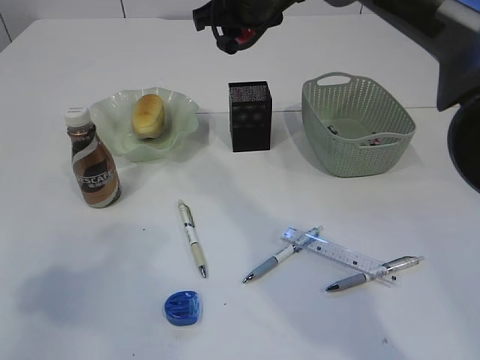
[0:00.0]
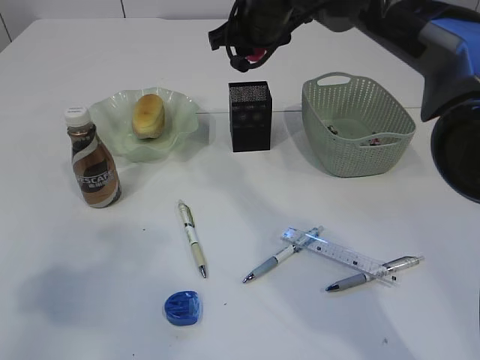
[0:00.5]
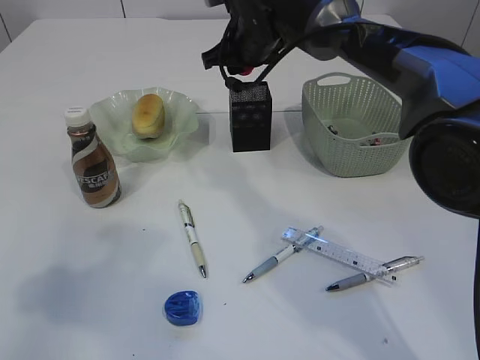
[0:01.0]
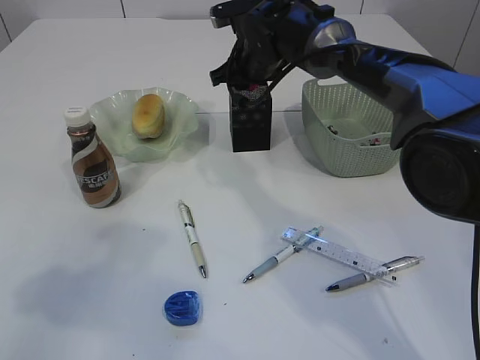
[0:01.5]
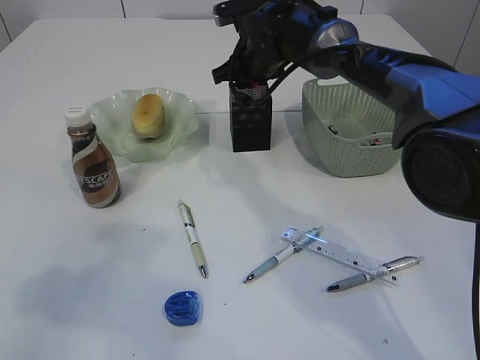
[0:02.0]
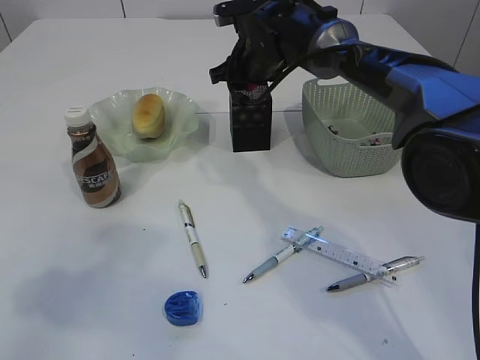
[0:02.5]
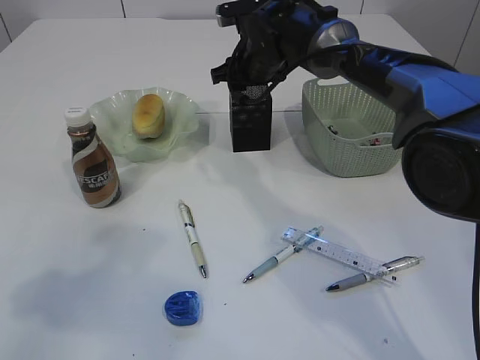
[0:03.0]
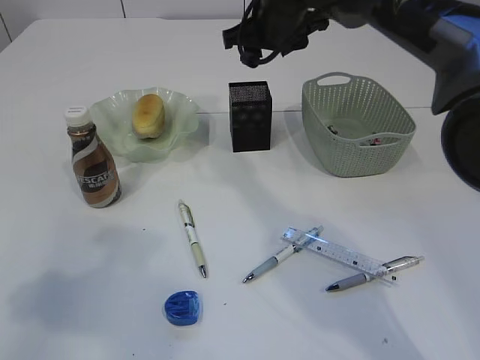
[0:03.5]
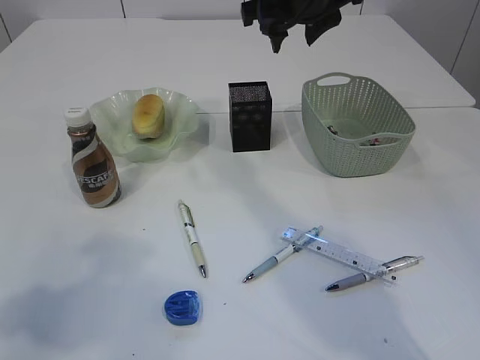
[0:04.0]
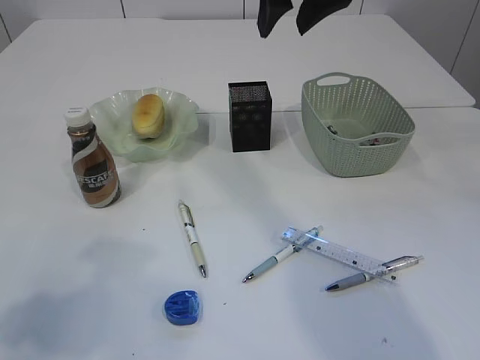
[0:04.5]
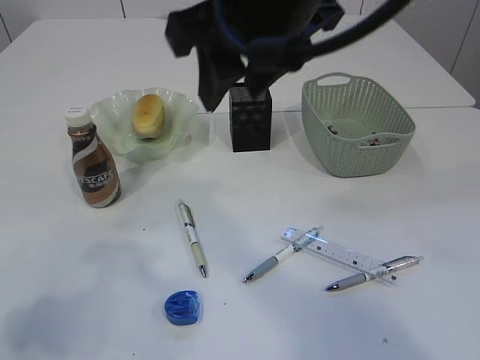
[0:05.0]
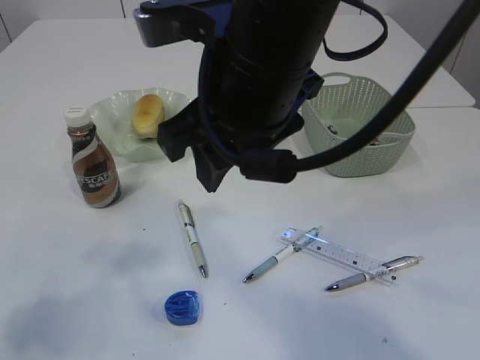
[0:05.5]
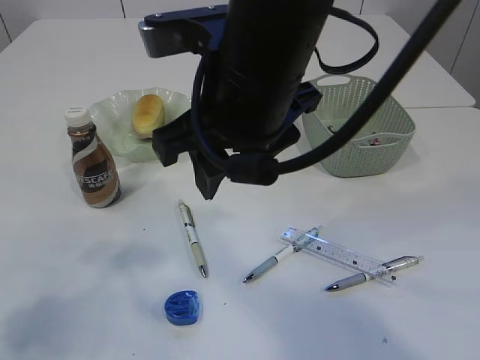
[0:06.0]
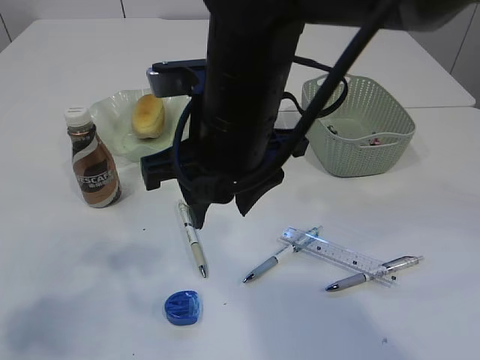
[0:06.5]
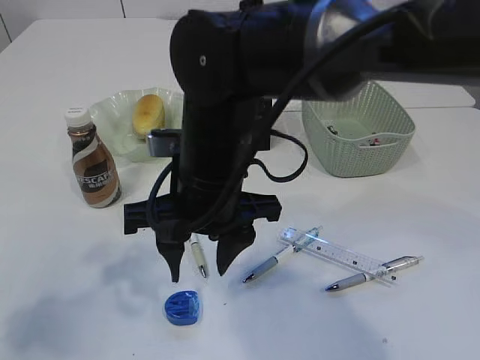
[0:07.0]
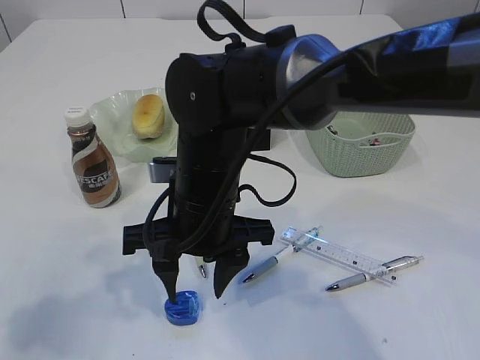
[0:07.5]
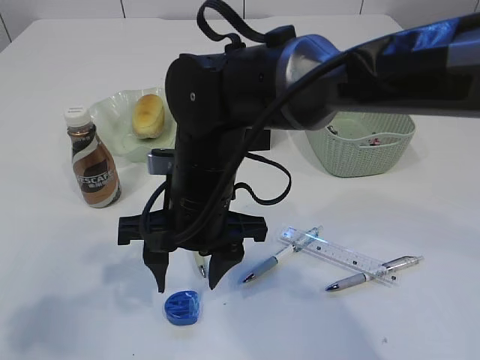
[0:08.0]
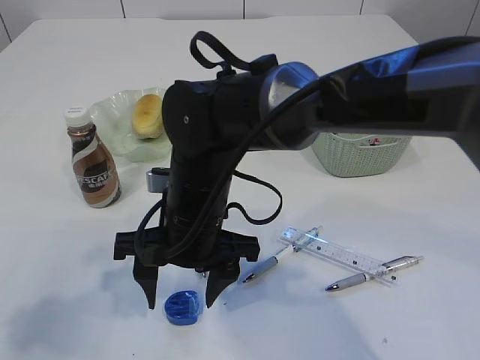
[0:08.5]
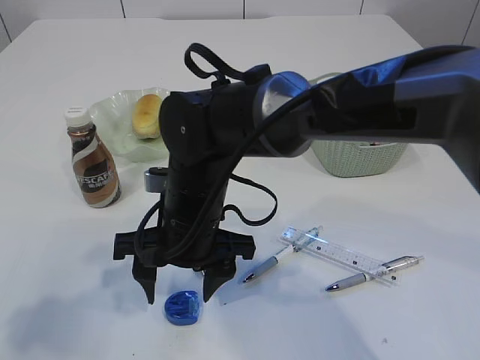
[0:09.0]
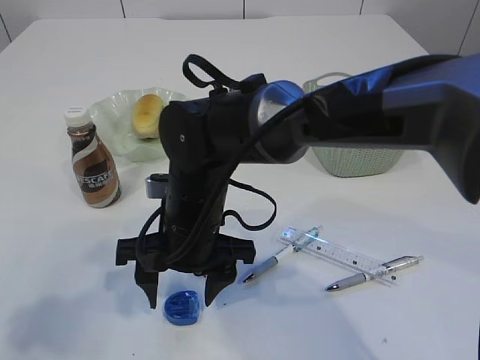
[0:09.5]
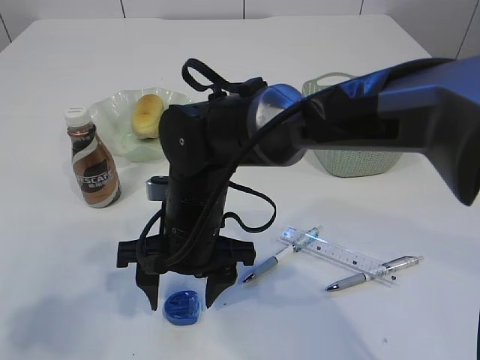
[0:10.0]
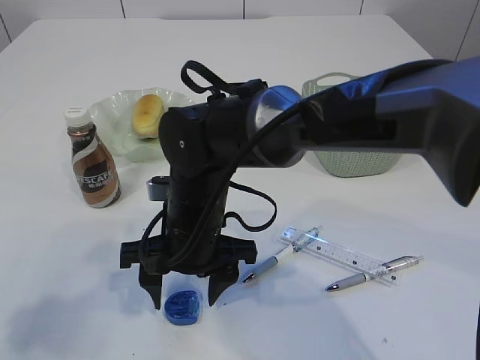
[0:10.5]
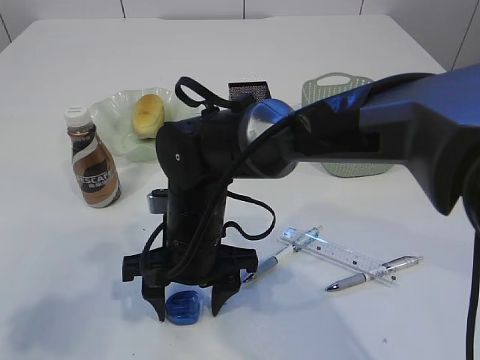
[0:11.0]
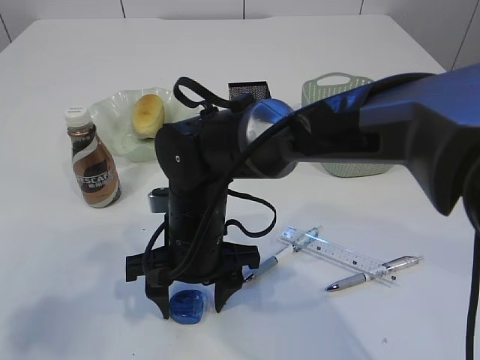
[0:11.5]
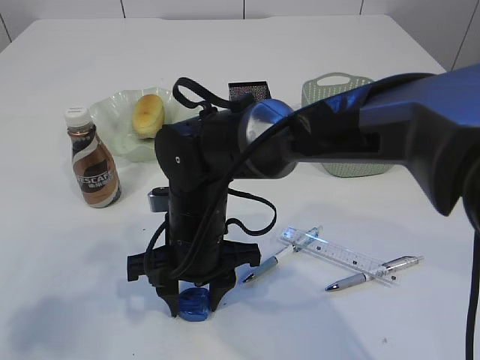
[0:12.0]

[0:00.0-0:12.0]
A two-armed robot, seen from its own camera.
Step, 0:00.0 to 0:03.5: Place the red pencil sharpener into the pen holder.
0:00.0 to 0:02.0: The right gripper is displaced downward and forward by approximately 10 cm.
0:02.0 to 0:04.0: The right gripper moves upward and backward, roughly 15 cm.
0:04.0 to 0:06.0: The right gripper is displaced backward and to the left by approximately 20 cm.
0:06.0 to 0:08.0: The right gripper is displaced downward by some 15 cm.
0:10.0 to 0:12.0: There are only small adjustments of the grippers.

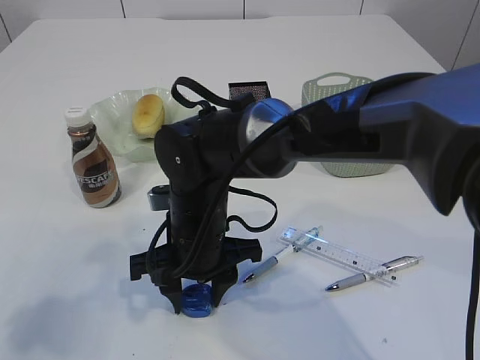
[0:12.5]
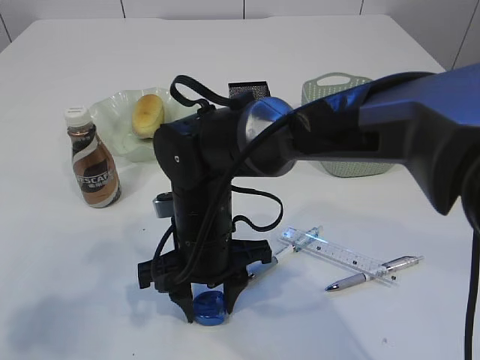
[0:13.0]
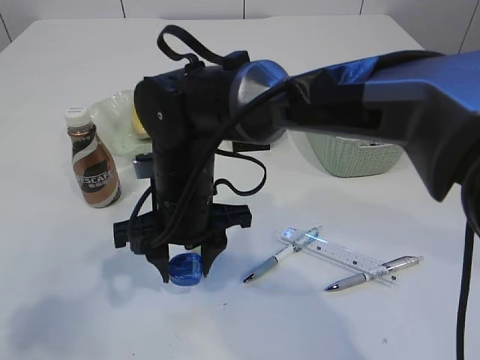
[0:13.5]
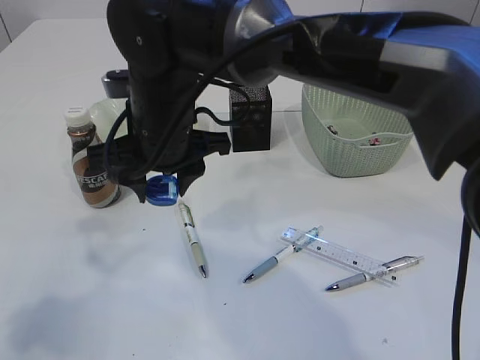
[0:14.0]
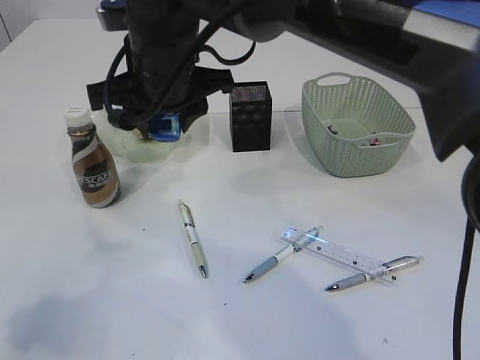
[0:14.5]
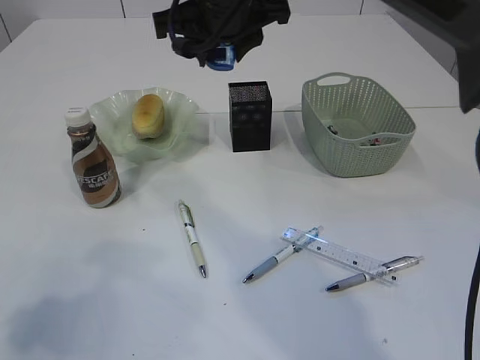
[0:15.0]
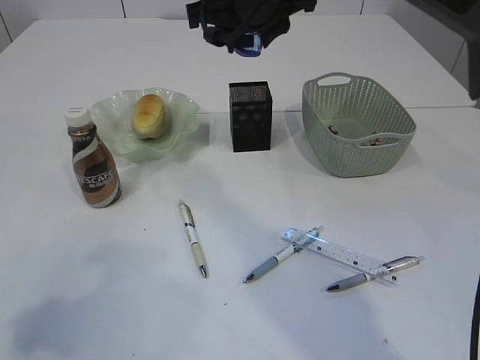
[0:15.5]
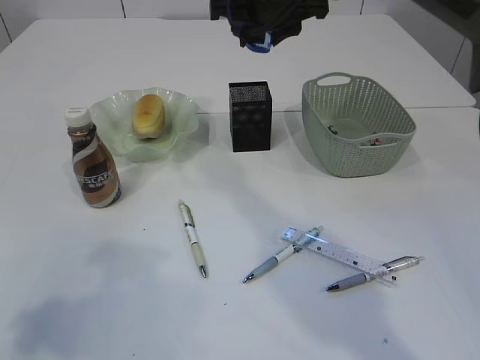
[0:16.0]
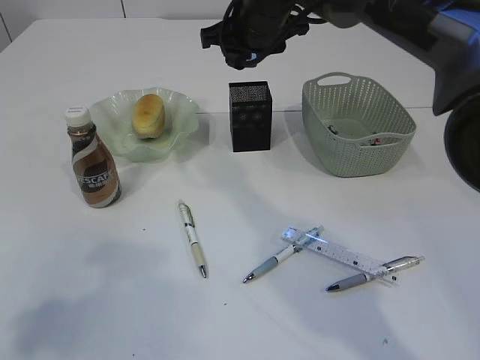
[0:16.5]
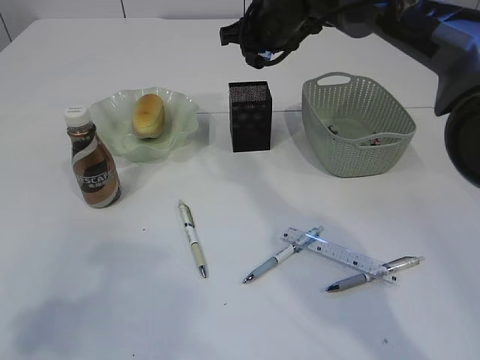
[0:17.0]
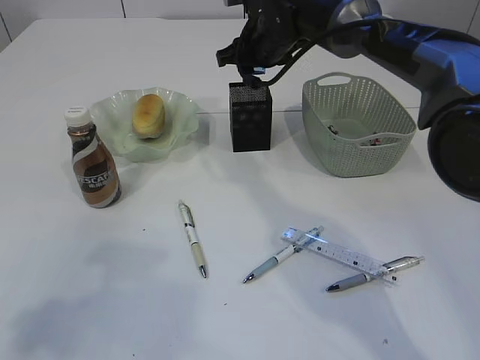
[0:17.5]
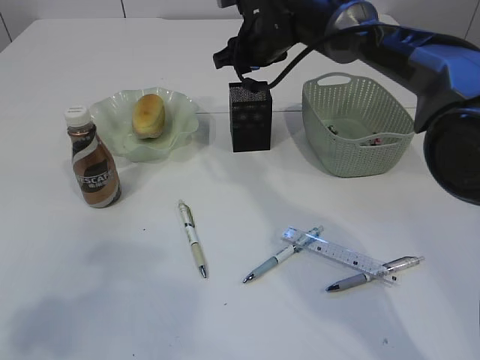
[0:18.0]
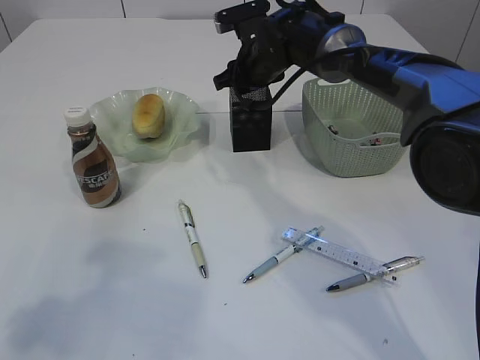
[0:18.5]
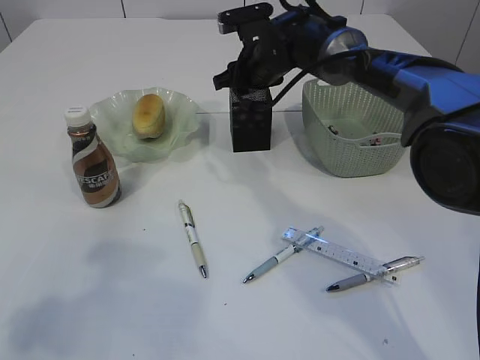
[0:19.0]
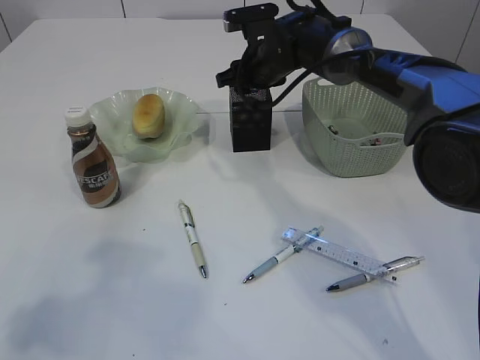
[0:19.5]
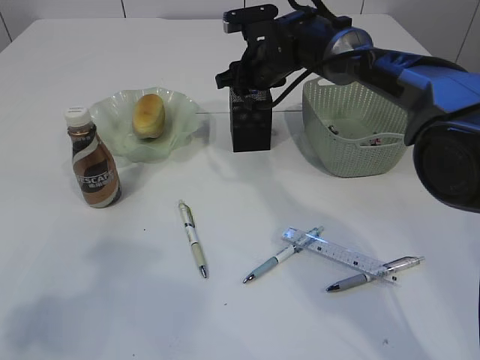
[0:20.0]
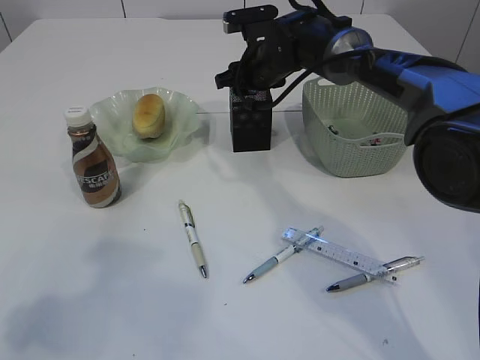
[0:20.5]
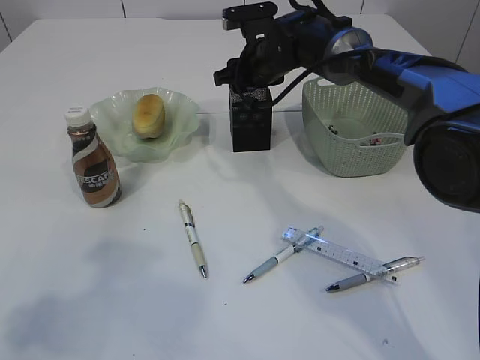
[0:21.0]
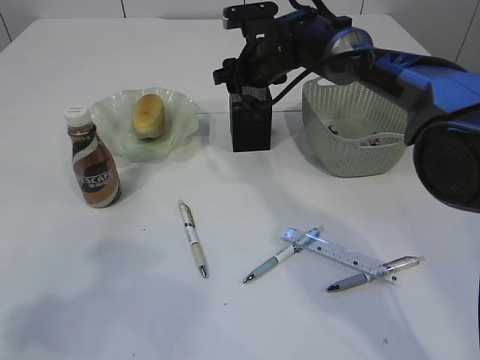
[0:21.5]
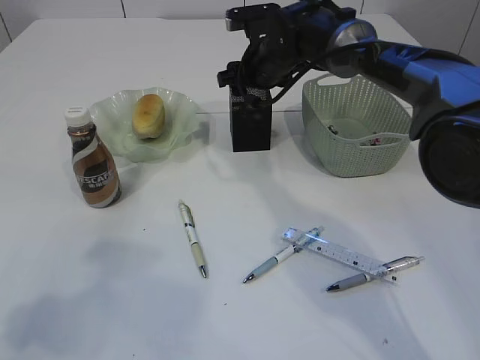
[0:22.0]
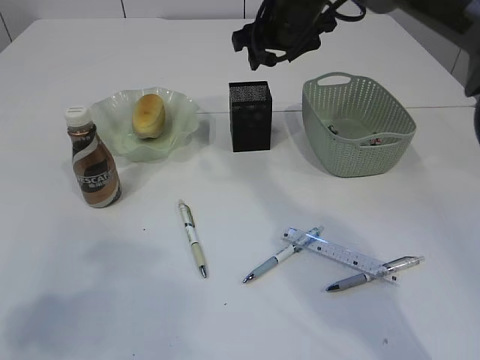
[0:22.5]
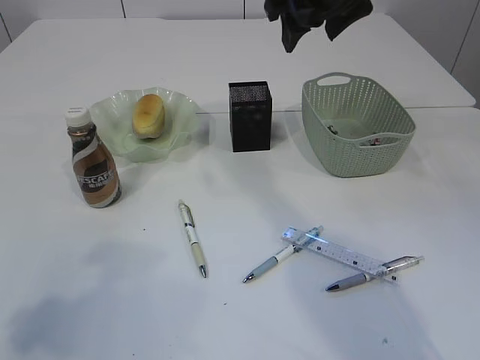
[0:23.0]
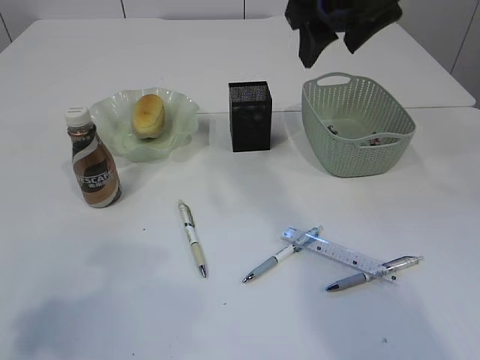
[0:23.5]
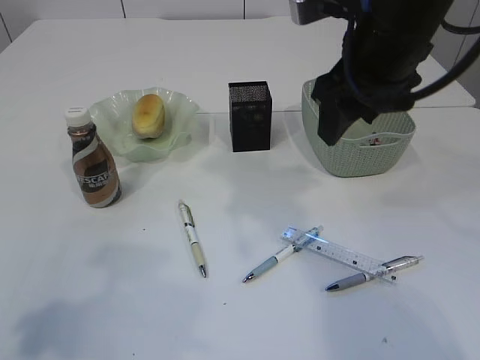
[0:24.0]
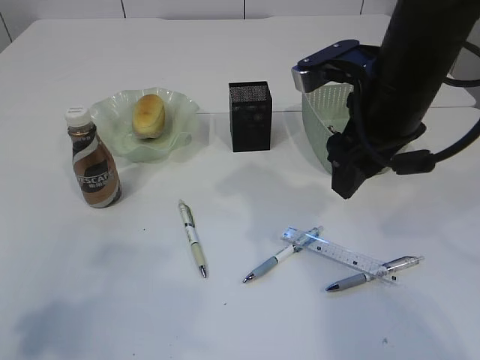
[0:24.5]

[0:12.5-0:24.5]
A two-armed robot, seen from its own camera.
Step, 0:14.0 to 0:22.5: Place the blue pencil sharpener into the pen holder.
0:12.5 to 0:14.5: The right gripper moves upward, some 15 cm.
0:14.5 to 0:16.5: The right gripper is displaced forward and to the right by approximately 15 cm.
0:16.5 to 0:18.5: The right gripper is displaced downward by roughly 10 cm.
0:18.5 to 0:20.5: The grippers move only a little.
0:20.5 to 0:22.5: The right gripper goes roughly 5 cm upward.
0:22.5 to 0:24.5: The right gripper goes some 20 cm backward.

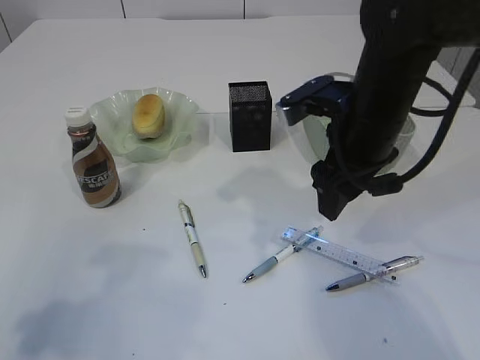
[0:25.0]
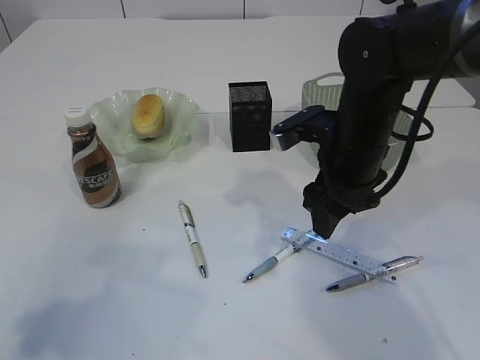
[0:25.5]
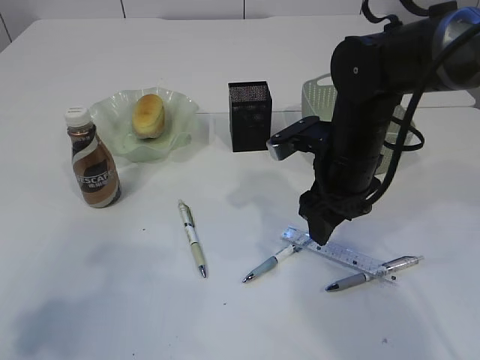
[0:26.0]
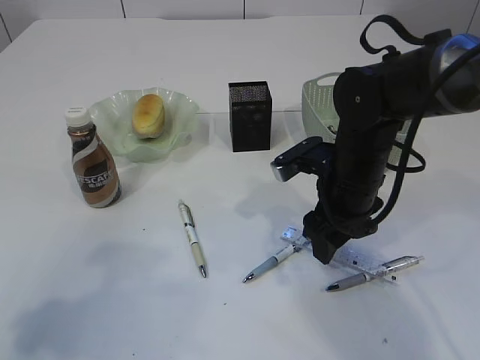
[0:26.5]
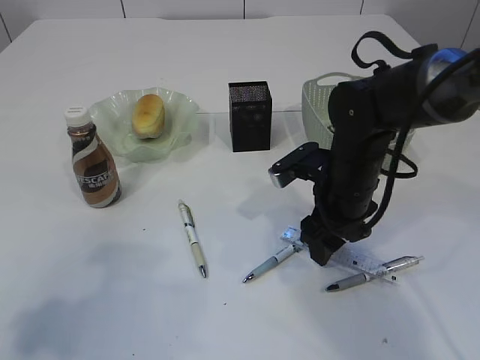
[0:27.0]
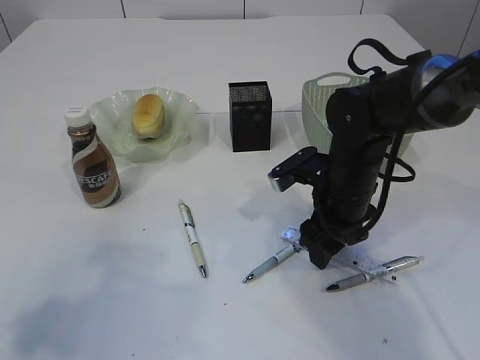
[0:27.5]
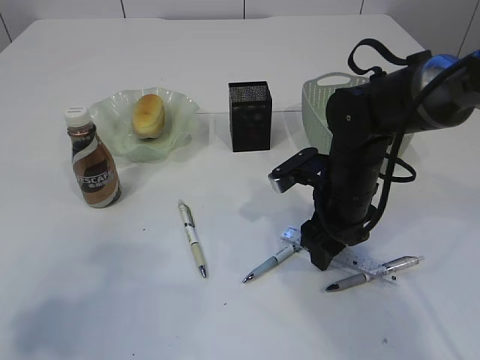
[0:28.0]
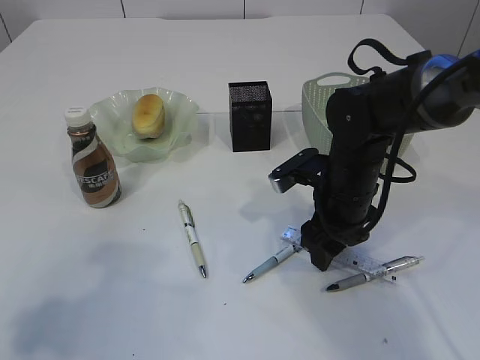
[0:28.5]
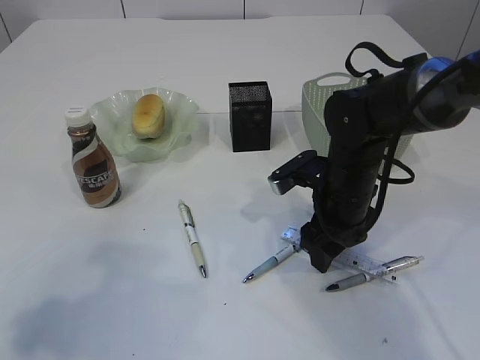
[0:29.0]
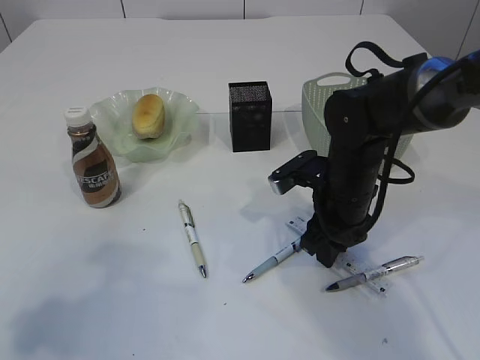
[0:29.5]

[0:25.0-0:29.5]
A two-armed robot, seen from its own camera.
0:25.0 to 0:27.0: The right gripper moves downward, approximately 10 cm.
0:27.0 to 0:29.5: The right gripper closes its fingers.
